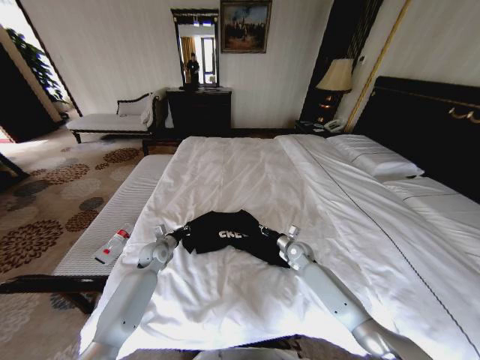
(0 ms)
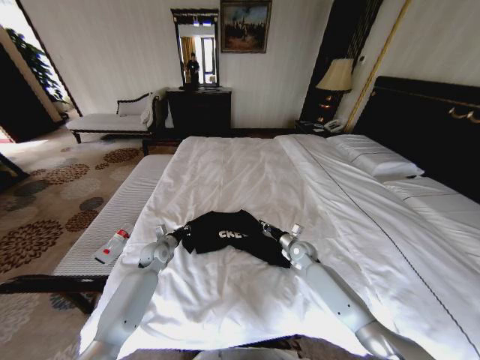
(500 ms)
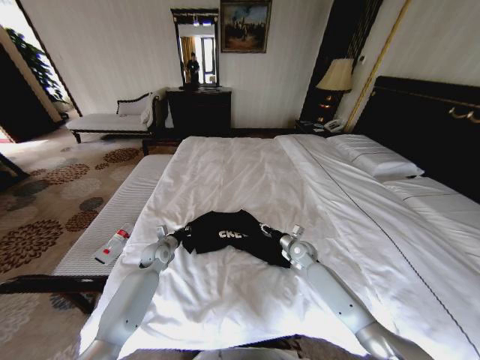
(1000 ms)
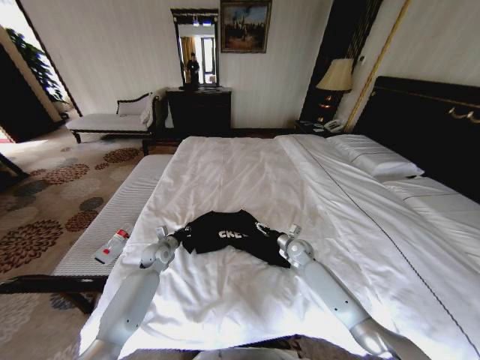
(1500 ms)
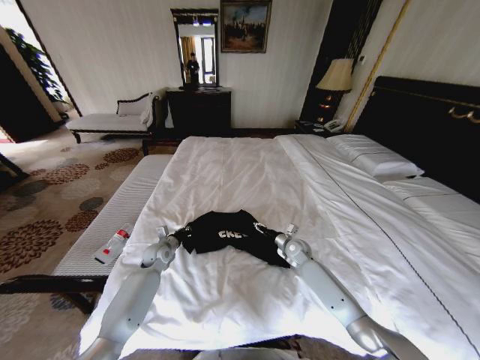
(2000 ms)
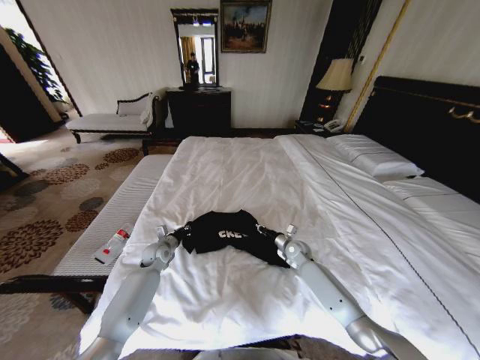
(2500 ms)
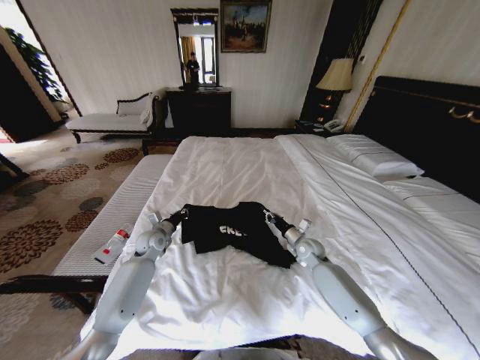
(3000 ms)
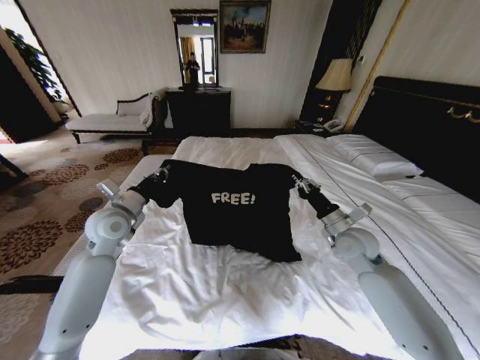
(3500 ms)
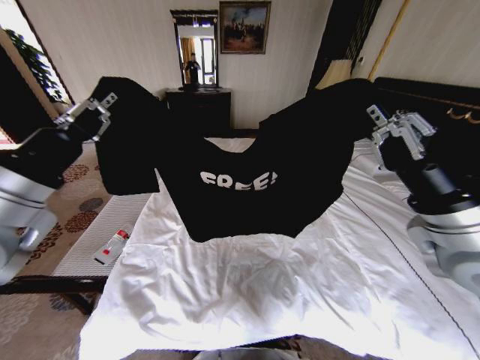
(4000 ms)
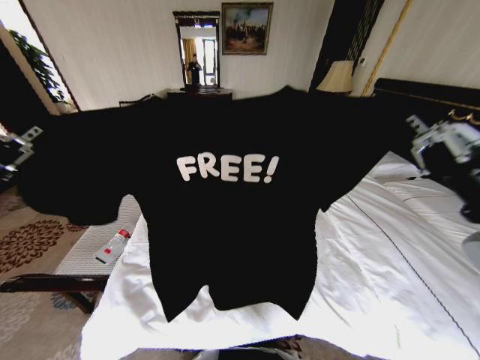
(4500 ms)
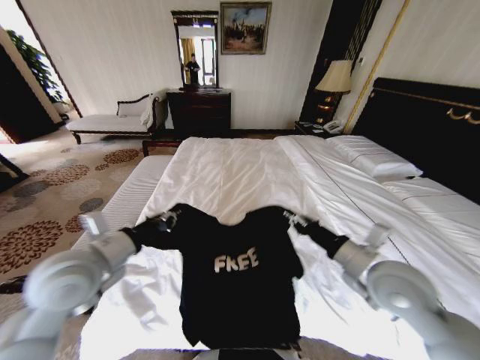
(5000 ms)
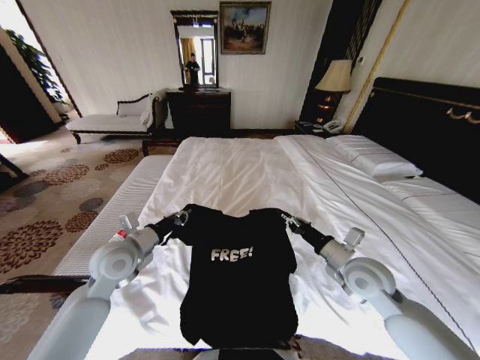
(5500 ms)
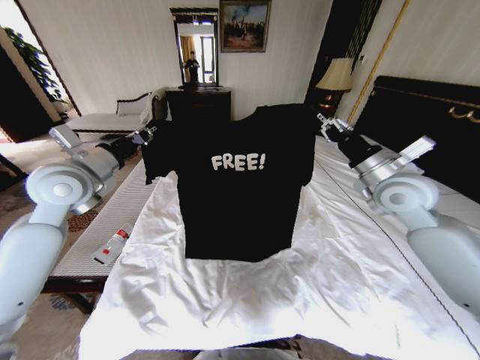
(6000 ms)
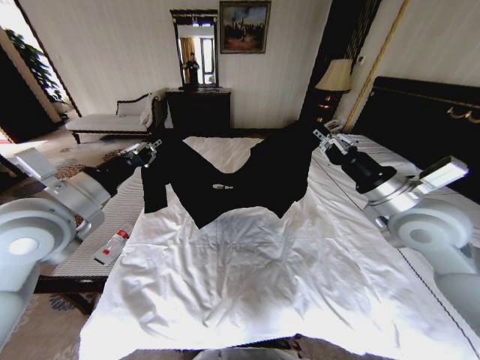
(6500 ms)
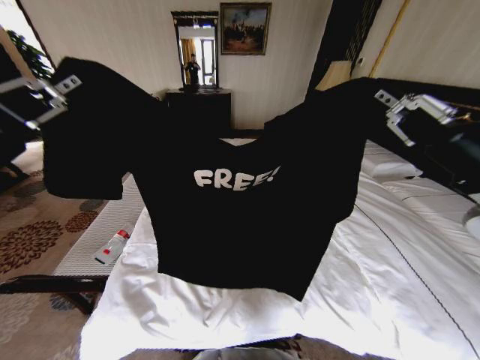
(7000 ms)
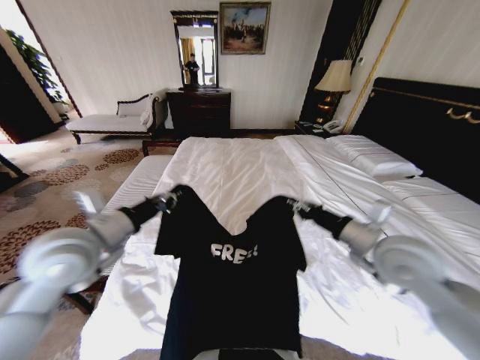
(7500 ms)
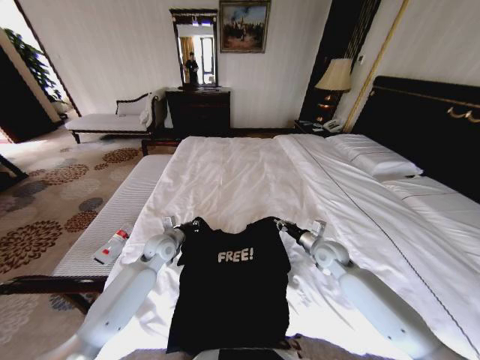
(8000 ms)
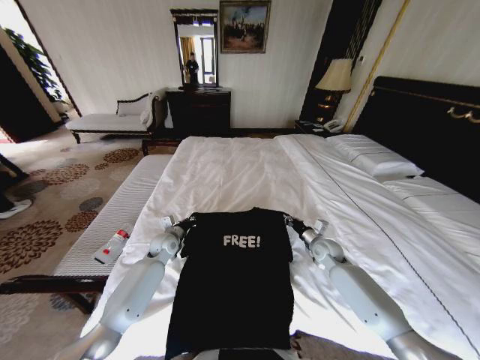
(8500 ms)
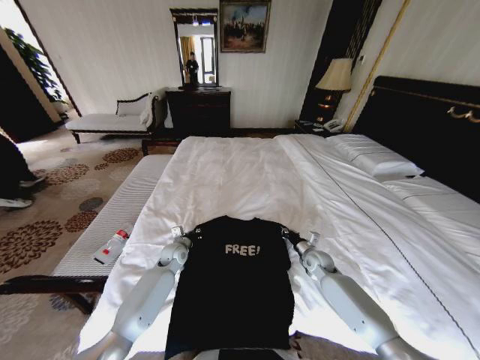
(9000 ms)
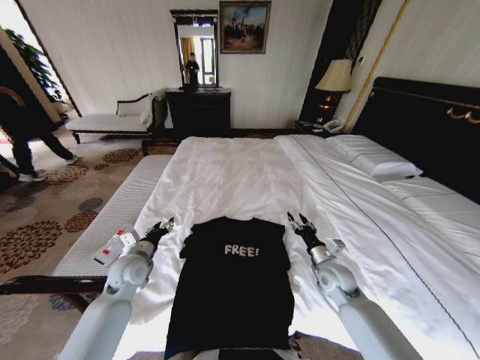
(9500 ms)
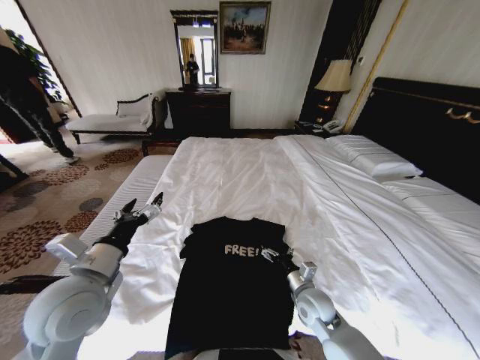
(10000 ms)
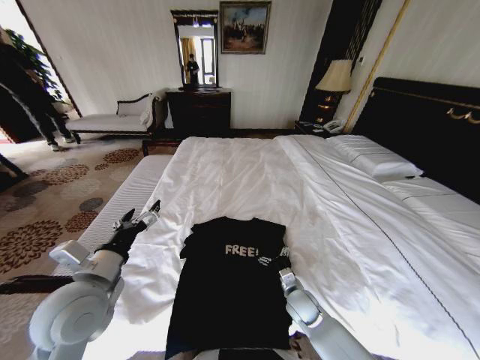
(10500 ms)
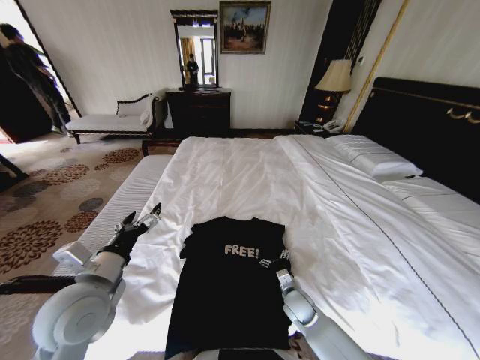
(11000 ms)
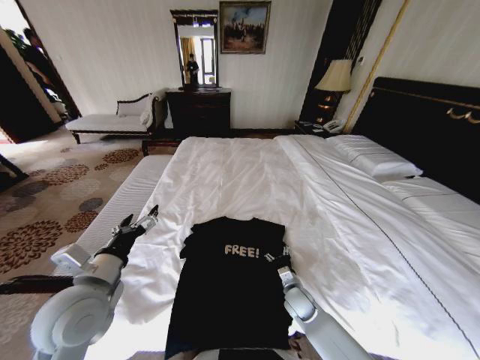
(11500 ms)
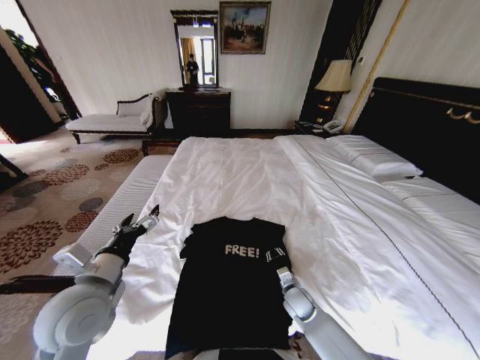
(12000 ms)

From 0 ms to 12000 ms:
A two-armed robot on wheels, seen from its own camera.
Task of the whole recording: Fold the clothes on the bed.
From 0 ms to 2000 ms: The right gripper opens up.
From 2000 ms to 4000 ms: The grippers both shift upward and backward by approximately 40 cm. The right gripper closes up.
From 4000 ms to 6000 ms: The grippers both shift forward by roughly 15 cm. The right gripper reaches roughly 20 cm downward, then returns.
From 6000 ms to 8000 ms: Both grippers travel together downward, roughly 25 cm.
From 8000 ms to 10000 ms: The right gripper moves backward and to the left, roughly 15 cm, and opens up. Meanwhile the left gripper travels backward and upward by approximately 25 cm, and opens up.
From 10000 ms to 12000 ms: The right gripper shifts some 10 cm downward, and closes up.

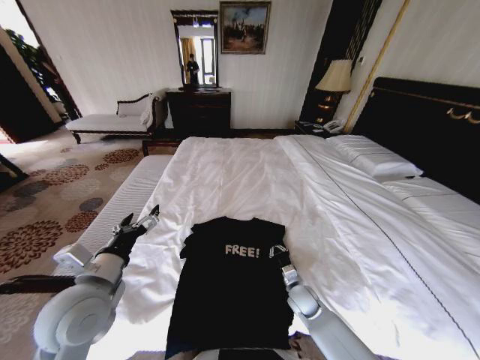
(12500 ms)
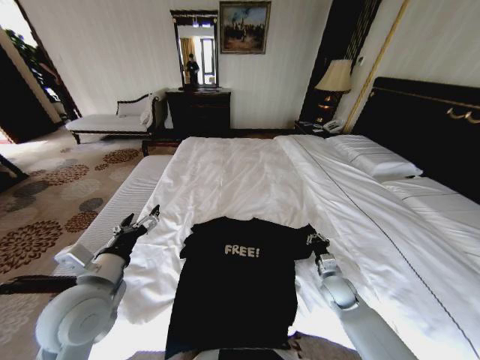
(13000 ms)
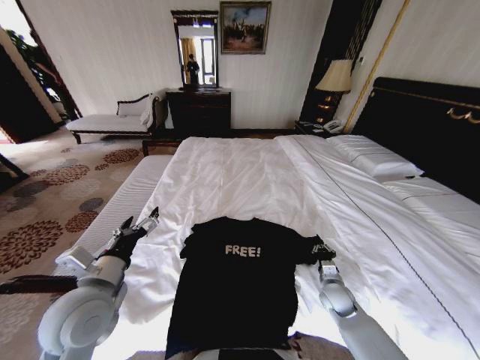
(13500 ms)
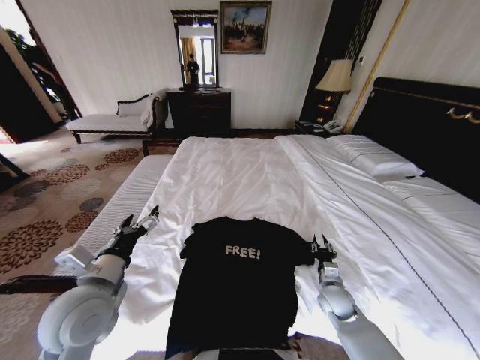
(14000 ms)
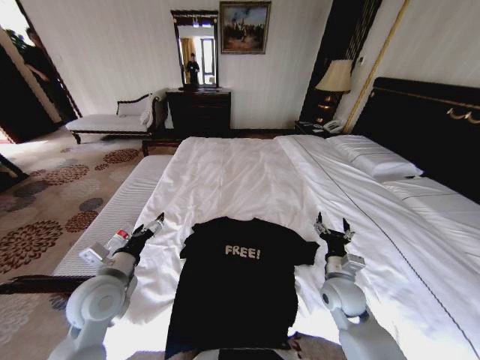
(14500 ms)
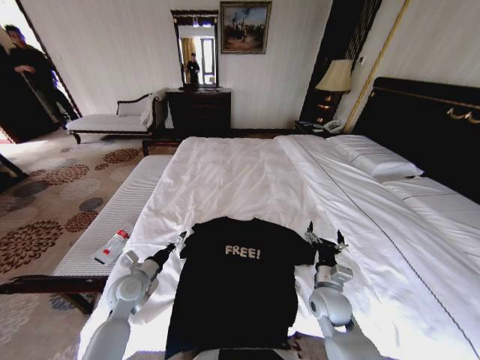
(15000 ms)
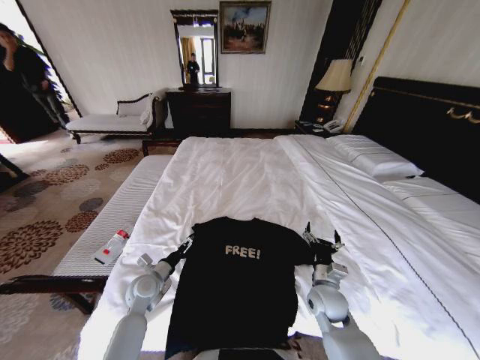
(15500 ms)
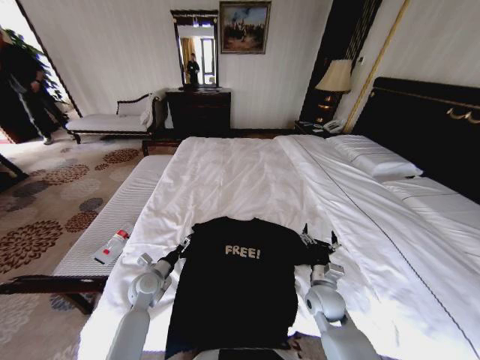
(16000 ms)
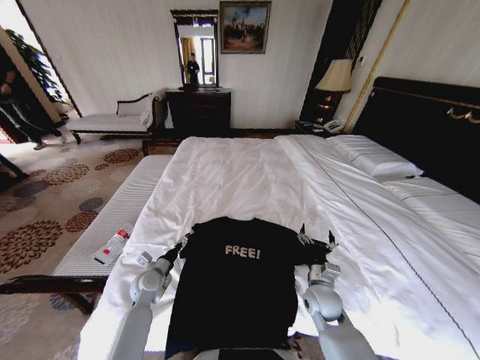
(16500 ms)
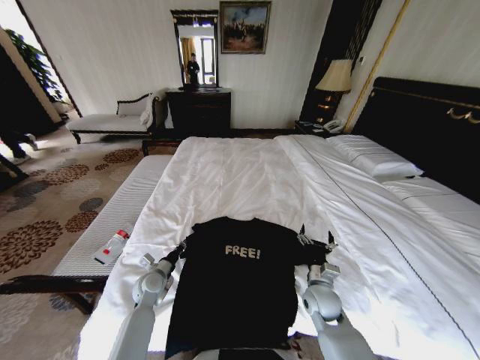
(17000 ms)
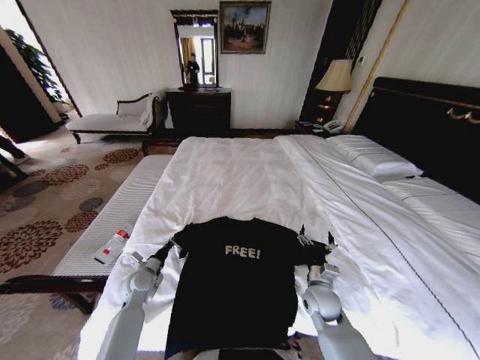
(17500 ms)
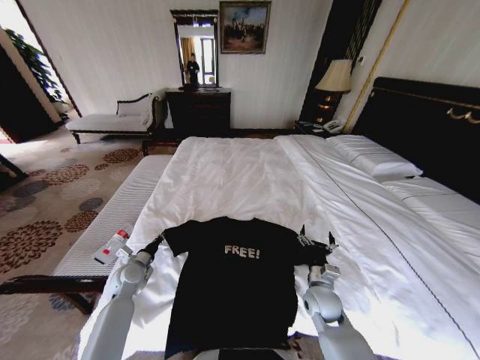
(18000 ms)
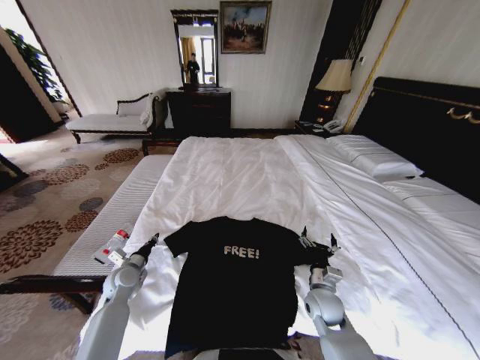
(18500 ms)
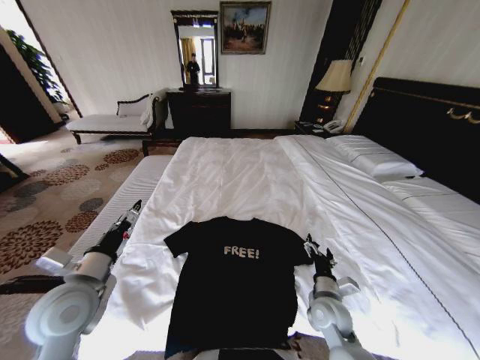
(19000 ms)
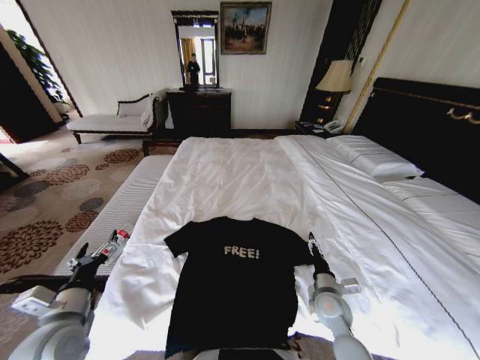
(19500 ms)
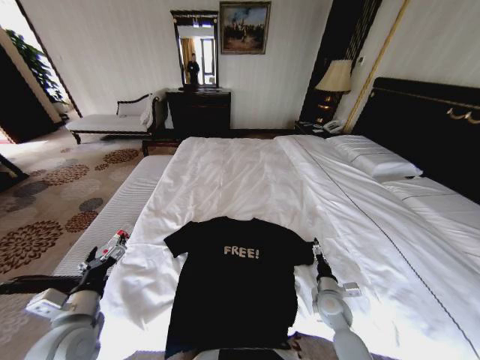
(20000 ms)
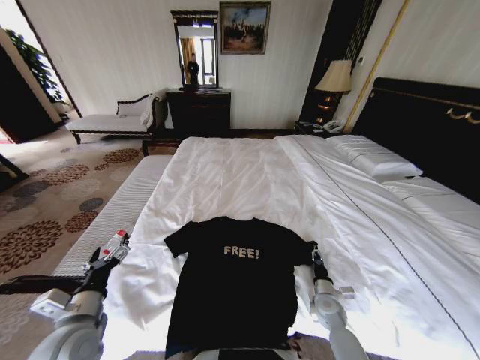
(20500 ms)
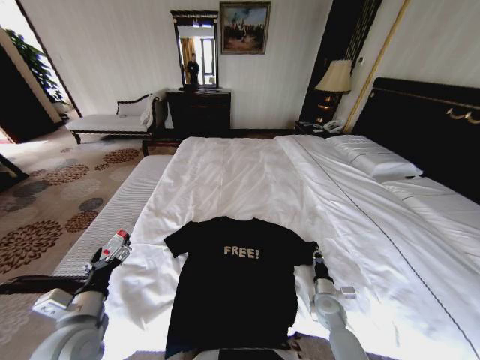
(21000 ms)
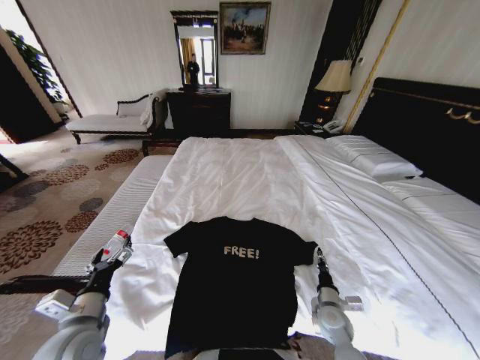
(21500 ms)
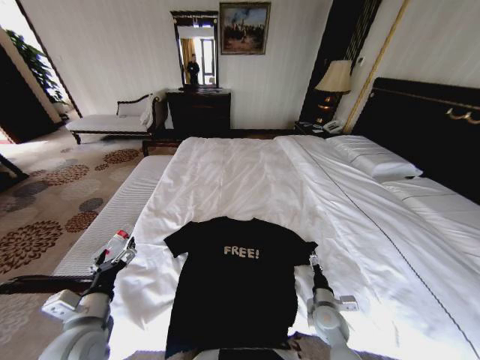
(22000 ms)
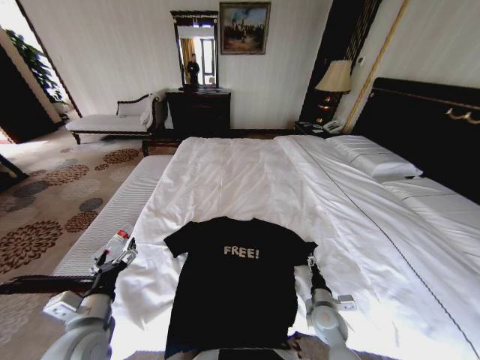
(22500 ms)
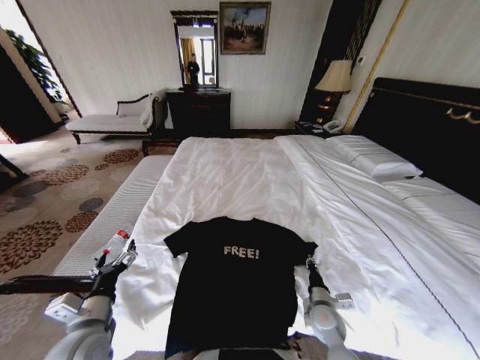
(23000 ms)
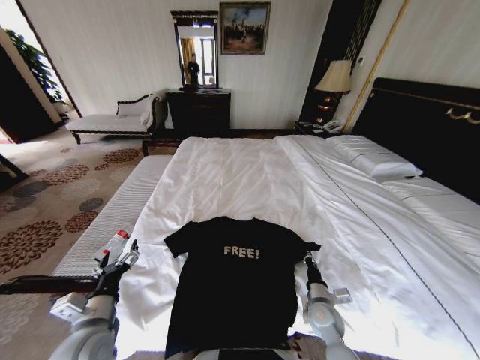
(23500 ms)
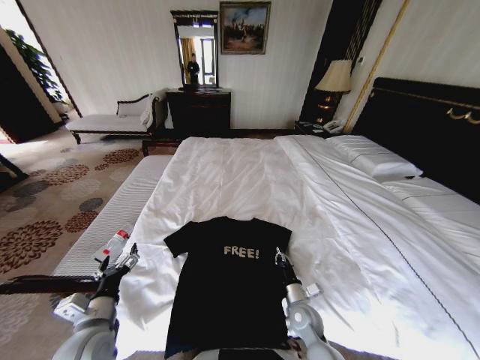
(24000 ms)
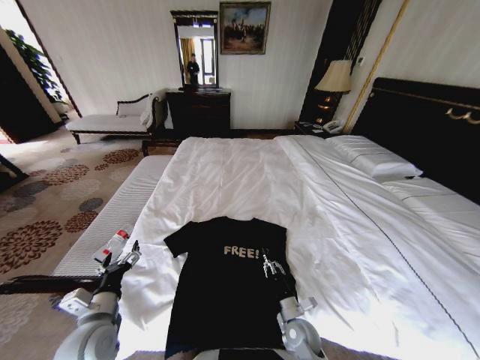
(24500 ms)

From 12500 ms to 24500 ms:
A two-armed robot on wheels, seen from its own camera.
Task of the whole recording: Fold the clothes on the bed.
From 12500 ms to 14500 ms: The left gripper ends up about 5 cm from where it was. Meanwhile the right gripper travels upward and to the right by approximately 15 cm, and opens its fingers.
From 14500 ms to 16500 ms: The right gripper travels downward by about 5 cm. The left gripper moves downward and forward, approximately 20 cm.
From 16500 ms to 18500 ms: The left gripper is displaced to the left by roughly 5 cm, and closes up.
From 18500 ms to 20500 ms: The right gripper is displaced downward and to the right by roughly 10 cm, and closes its fingers. The left gripper is displaced backward and upward by approximately 20 cm, and opens up.
From 20500 ms to 22500 ms: The right gripper shifts by some 5 cm, and opens its fingers.
From 22500 ms to 24500 ms: The right gripper moves to the left, some 10 cm, and closes its fingers.

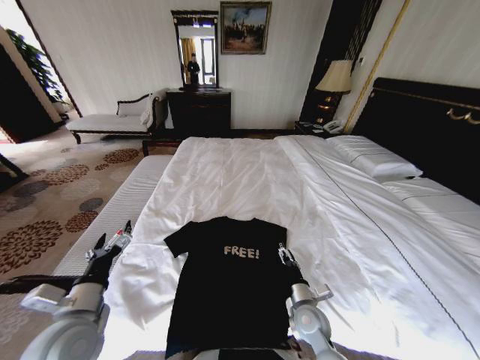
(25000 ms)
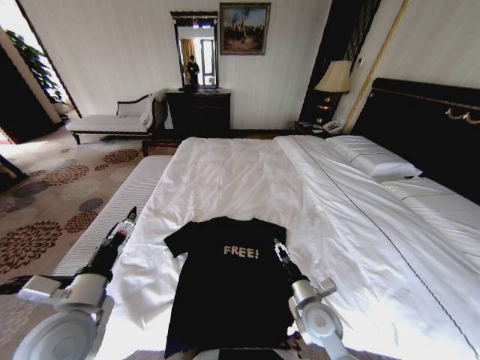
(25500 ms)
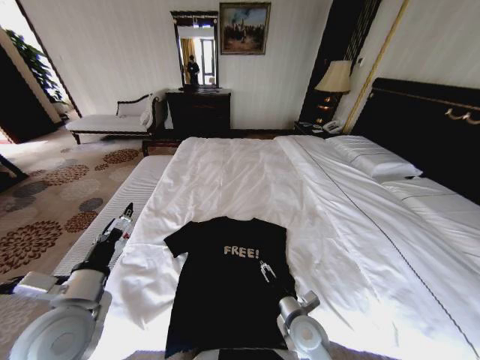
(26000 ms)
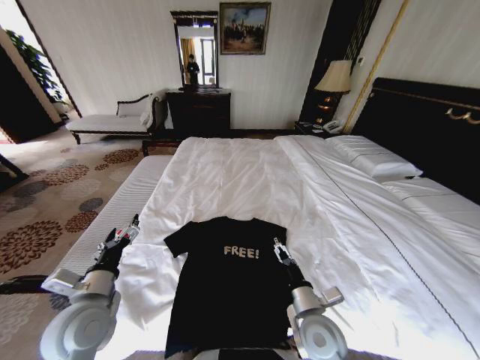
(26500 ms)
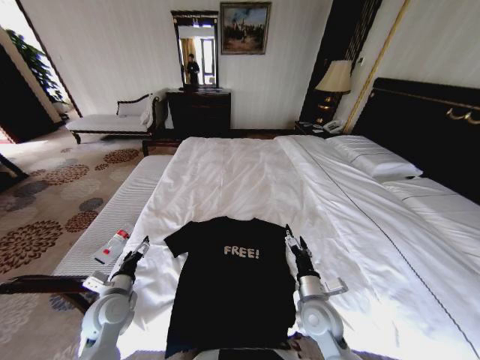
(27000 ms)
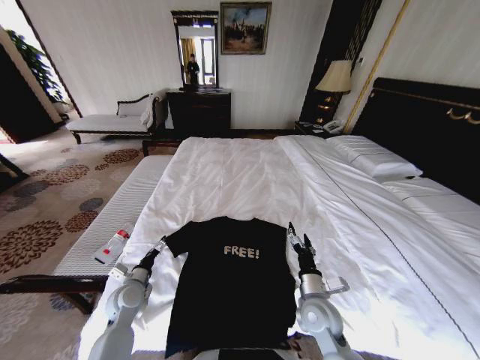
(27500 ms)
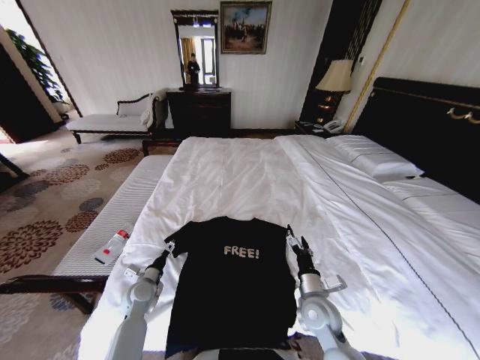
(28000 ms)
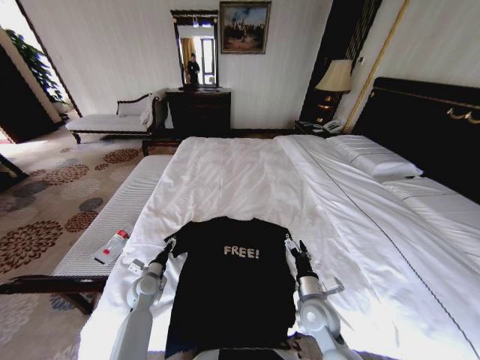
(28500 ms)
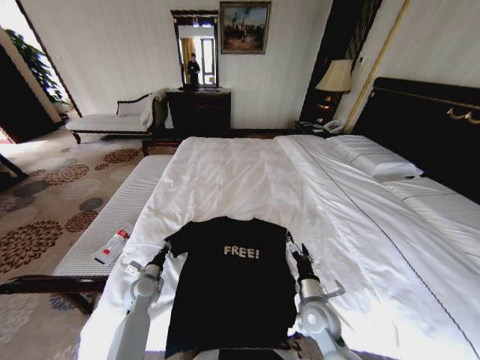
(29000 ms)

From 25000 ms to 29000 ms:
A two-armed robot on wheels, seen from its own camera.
Task of the whole recording: Fold the clothes on the bed.
From 25000 ms to 27000 ms: The right gripper shifts approximately 10 cm upward, while the left gripper is displaced forward and downward by about 10 cm.
From 27000 ms to 29000 ms: The left gripper goes some 15 cm downward and forward, and closes its fingers.
